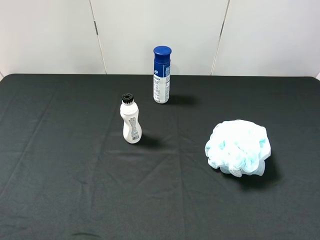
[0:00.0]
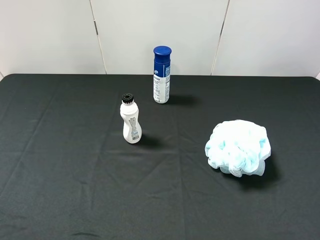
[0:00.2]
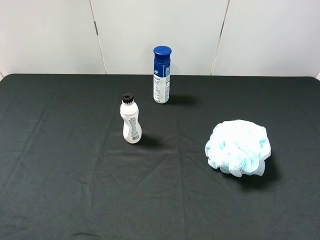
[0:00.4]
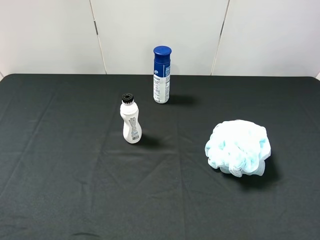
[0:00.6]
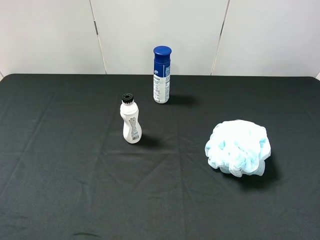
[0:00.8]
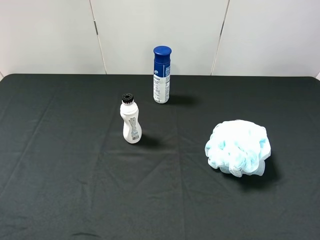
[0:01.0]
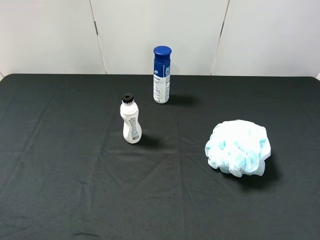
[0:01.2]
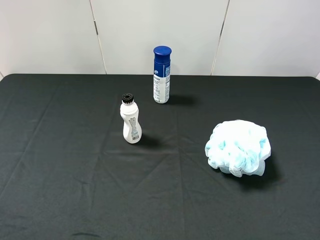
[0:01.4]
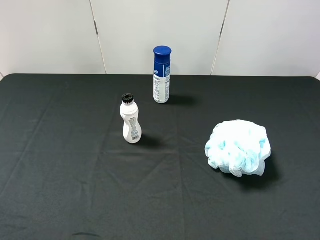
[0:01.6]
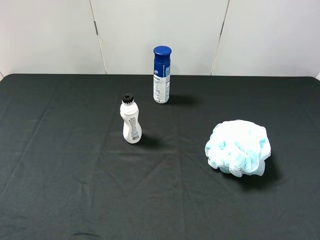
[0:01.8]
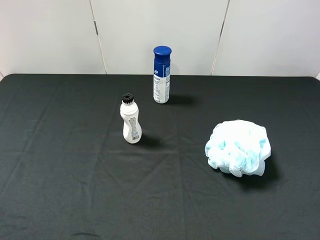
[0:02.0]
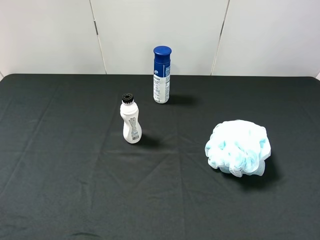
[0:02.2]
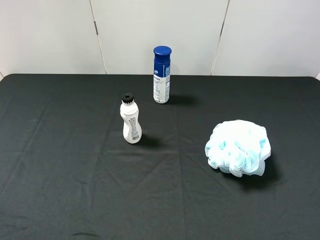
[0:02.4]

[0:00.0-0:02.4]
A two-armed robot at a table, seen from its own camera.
Task of the whole recording: use the left gripper to pick up the item and transfer it from the left gripper to the right gripper.
0:01.2 to 0:02.4: Both grippers stay about where they are.
